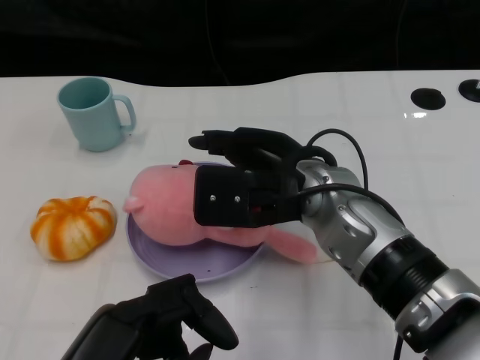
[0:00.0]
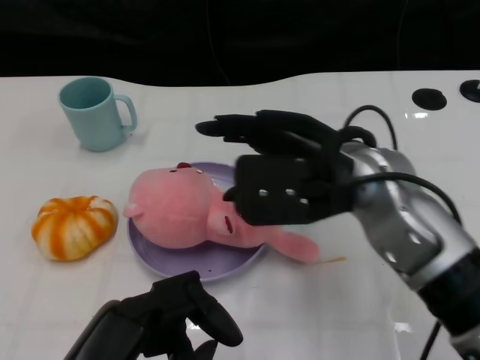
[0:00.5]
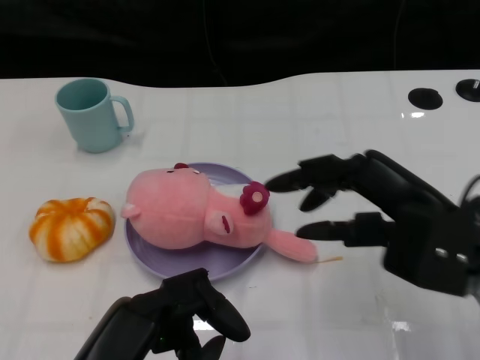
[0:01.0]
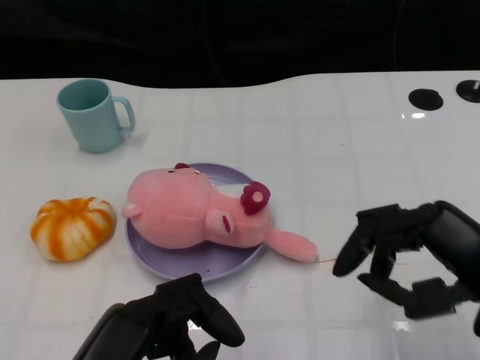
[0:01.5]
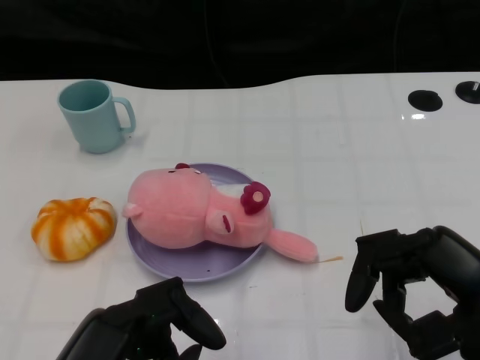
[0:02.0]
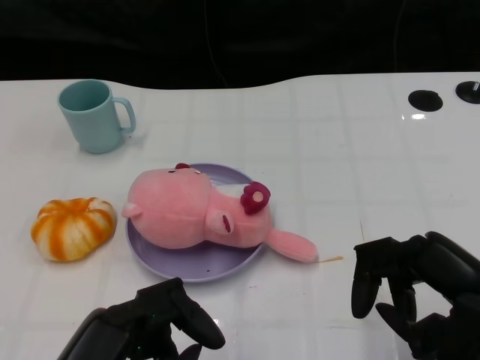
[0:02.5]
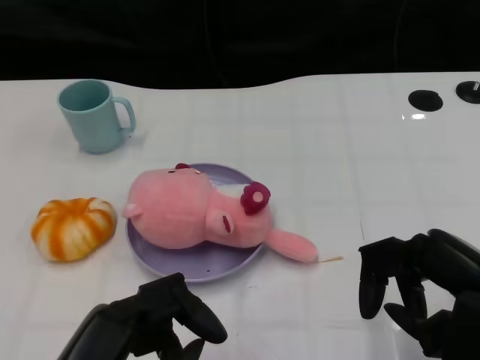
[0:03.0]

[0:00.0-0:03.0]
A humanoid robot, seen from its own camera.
Task of the whole recording: Pick up the doll on the other side of the plate and place it into the plate.
0:00.0 to 0:01.5: The right hand travels to the right and backward by about 20 cm.
0:01.5 to 0:03.0: There are only small adjustments of the hands.

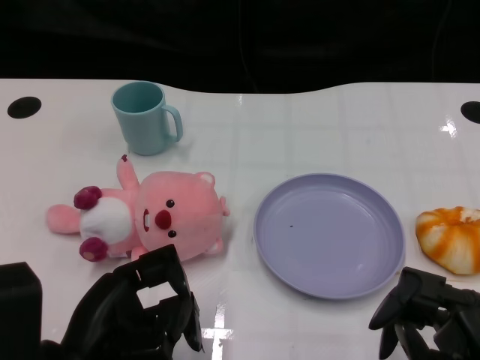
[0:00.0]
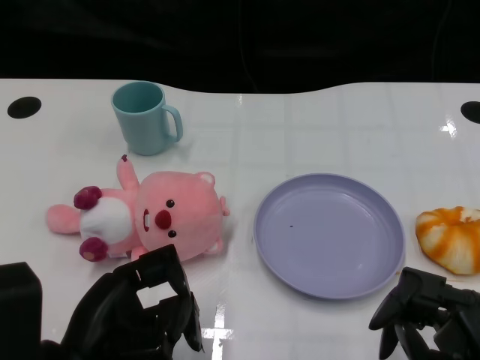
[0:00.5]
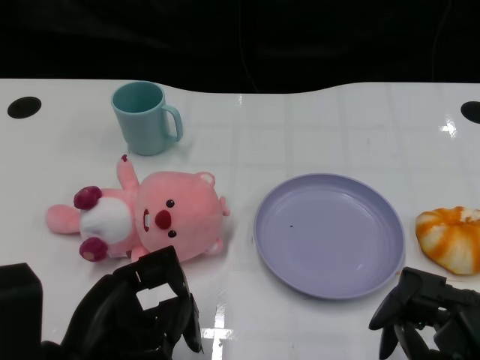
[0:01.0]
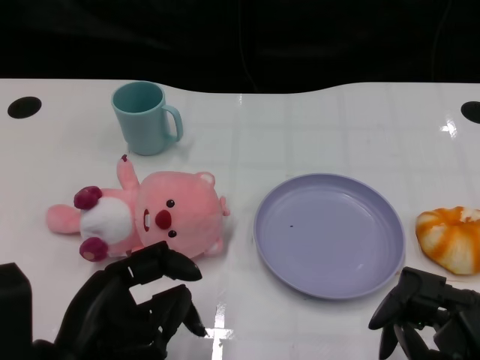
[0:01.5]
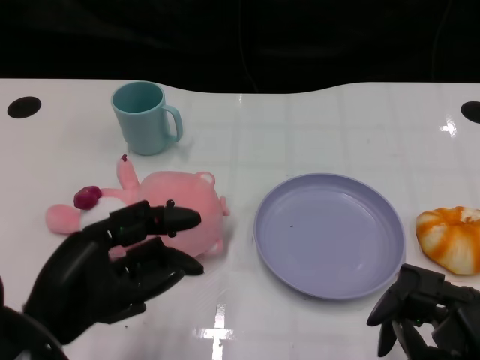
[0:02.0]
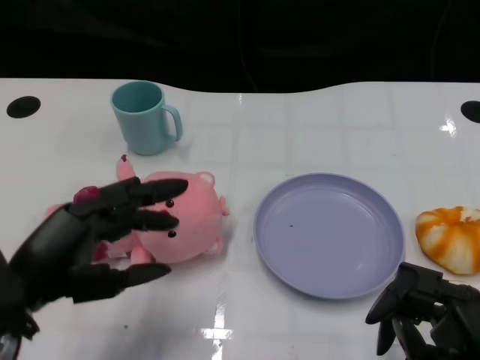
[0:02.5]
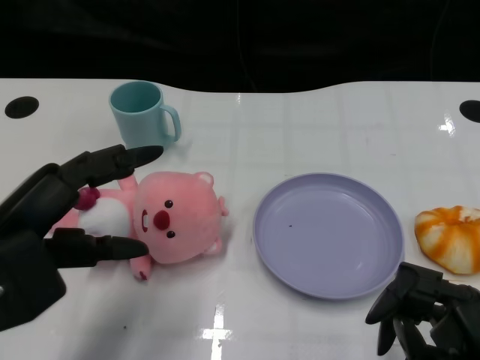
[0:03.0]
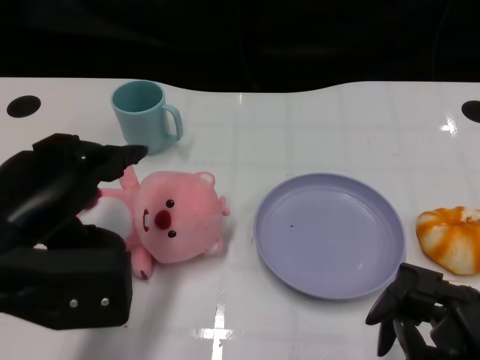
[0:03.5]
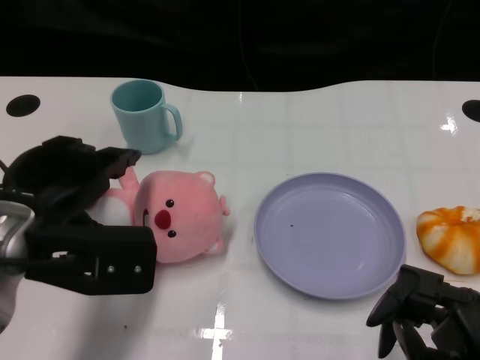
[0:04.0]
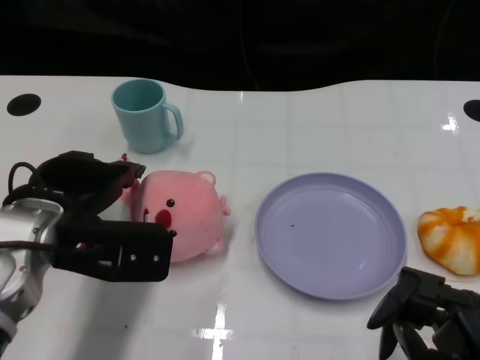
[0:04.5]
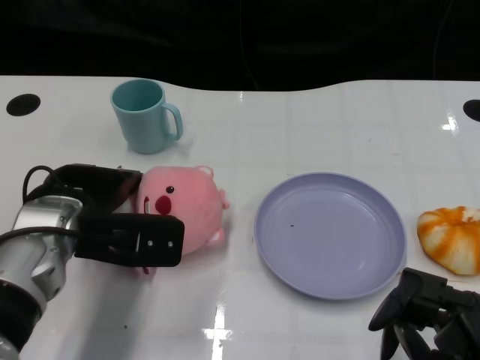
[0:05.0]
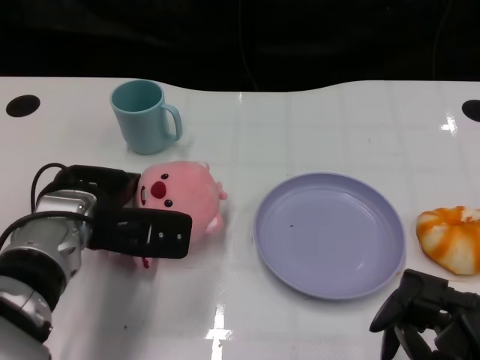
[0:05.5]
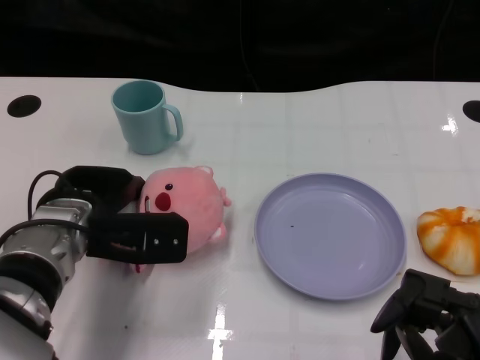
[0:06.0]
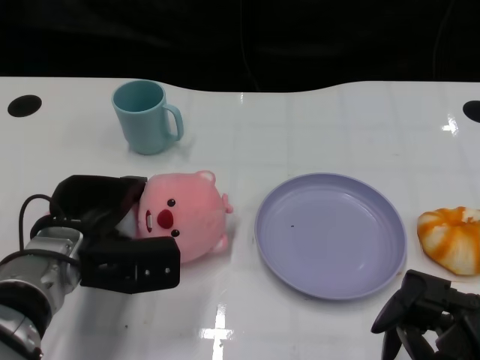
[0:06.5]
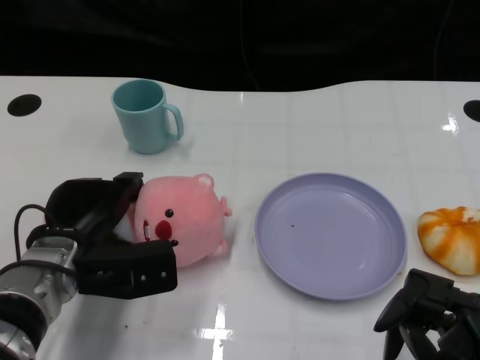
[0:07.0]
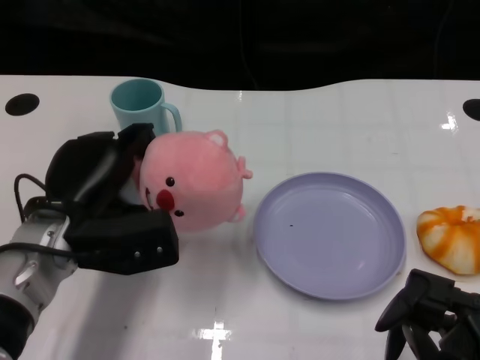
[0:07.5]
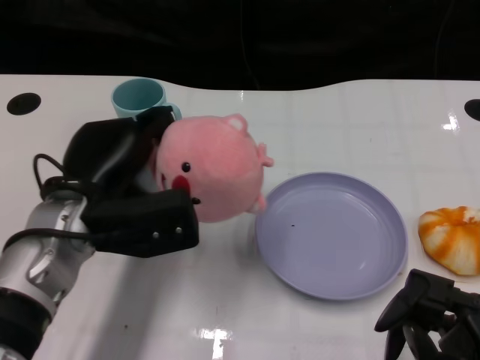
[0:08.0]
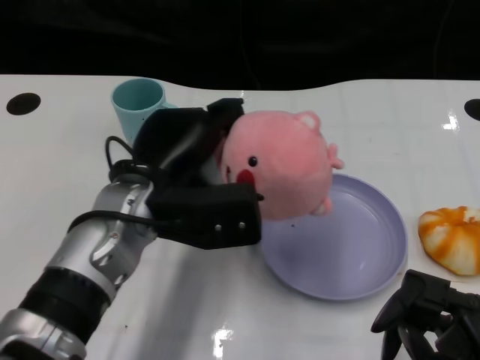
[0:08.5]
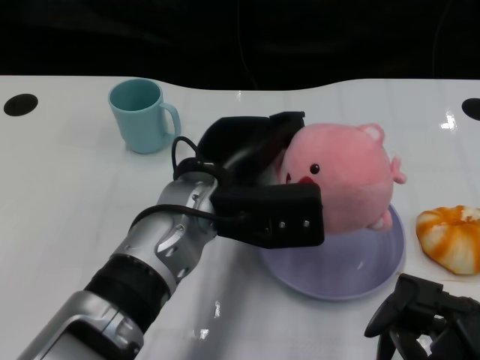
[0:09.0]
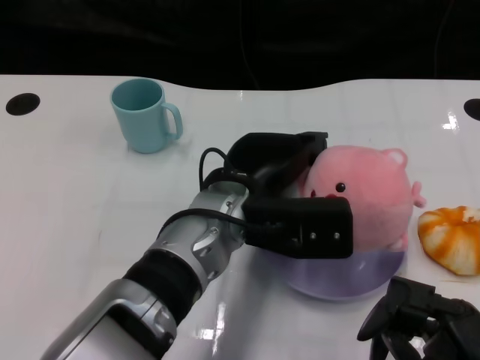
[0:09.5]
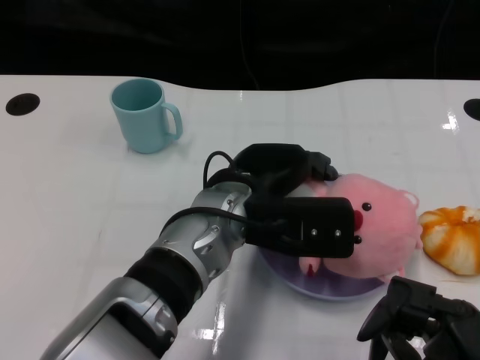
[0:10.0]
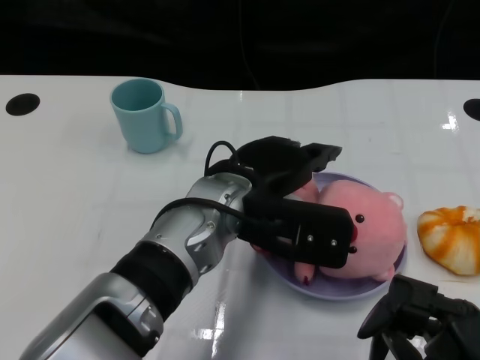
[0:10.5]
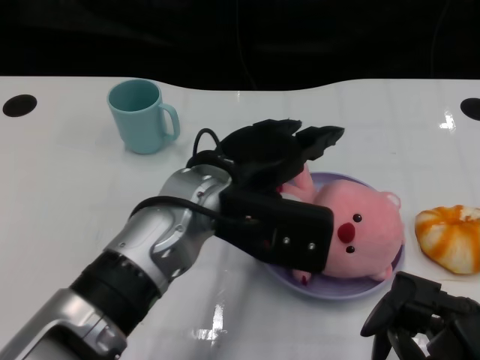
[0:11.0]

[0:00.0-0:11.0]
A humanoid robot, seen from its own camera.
Task of the whole recording: Pick up the doll on one side of the plate and place it into the plate.
Step, 0:01.5 to 0:07.0: Grasp the pink doll with the left gripper.
Step, 0:07.5 to 0:10.5: Place the pink doll into the plate with the left gripper.
0:02.0 to 0:03.5: The left hand travels upward by about 5 cm.
0:03.5 to 0:05.5: The left hand goes approximately 15 cm forward, downward and to the right.
0:07.5 to 0:09.0: The left hand moves to the right, approximately 15 cm.

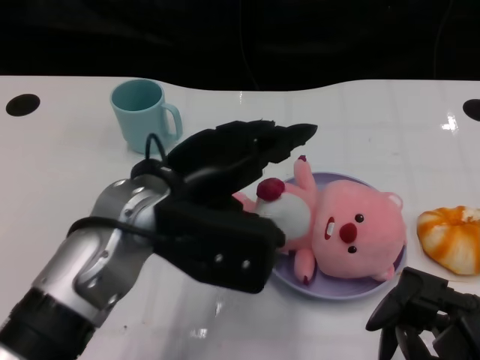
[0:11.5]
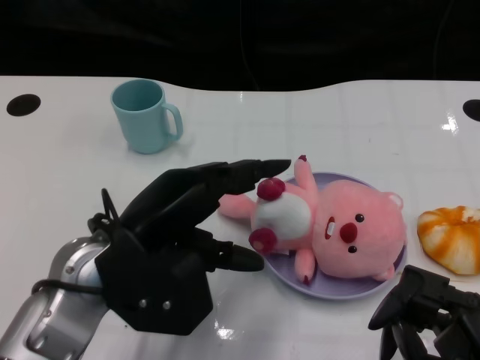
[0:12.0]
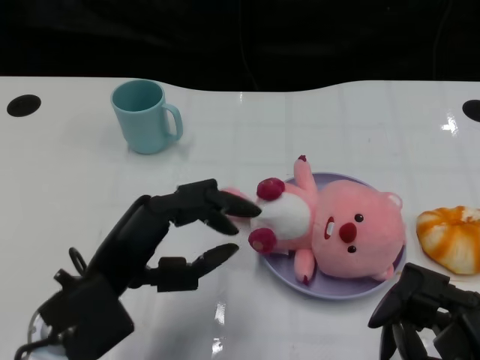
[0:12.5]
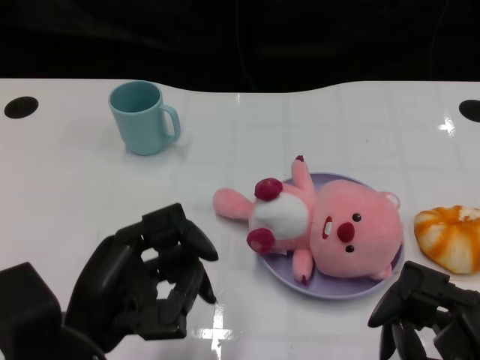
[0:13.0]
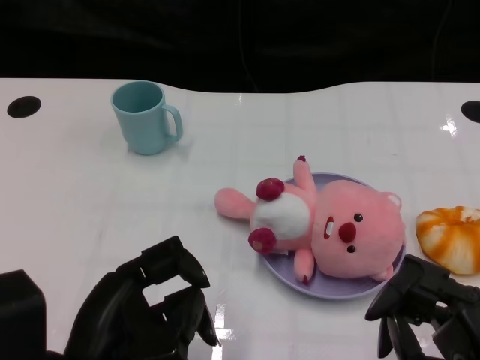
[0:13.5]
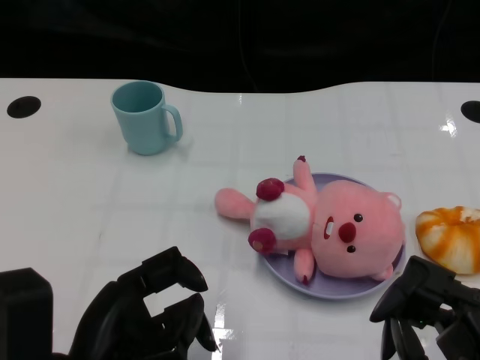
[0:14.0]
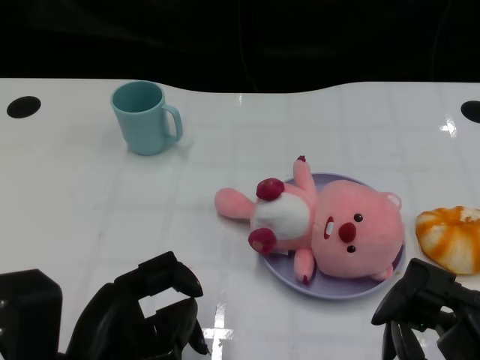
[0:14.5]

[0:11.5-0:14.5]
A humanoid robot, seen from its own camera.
Task of the whole recording: Pick up the doll on one side of the plate and place it into the plate.
0:11.5 to 0:13.0: The left hand travels backward, to the left and downward by approximately 15 cm.

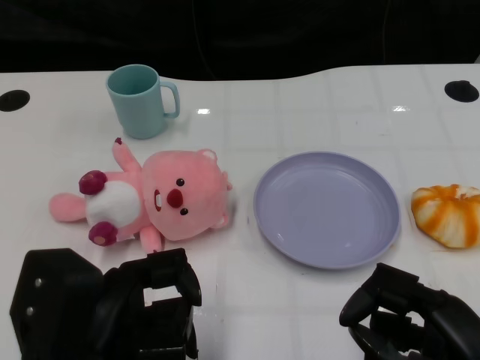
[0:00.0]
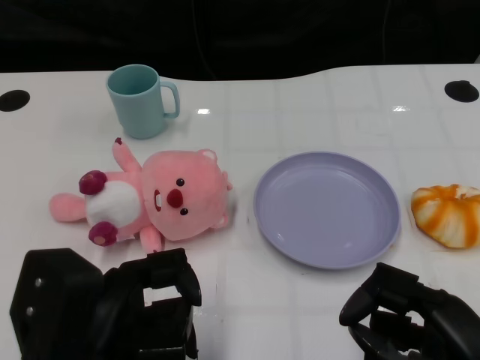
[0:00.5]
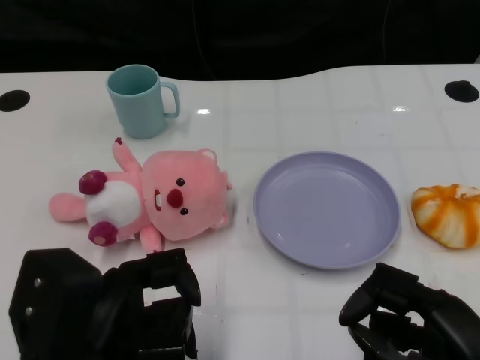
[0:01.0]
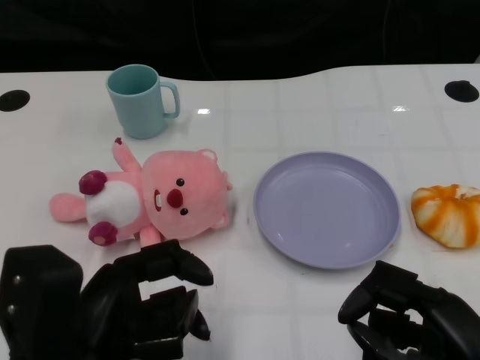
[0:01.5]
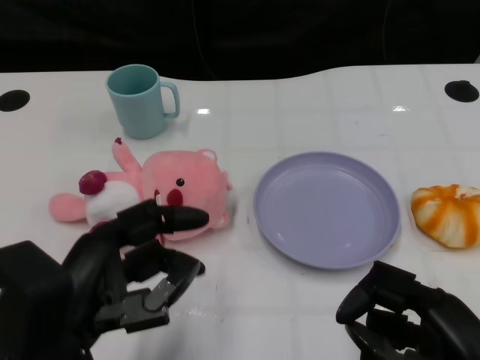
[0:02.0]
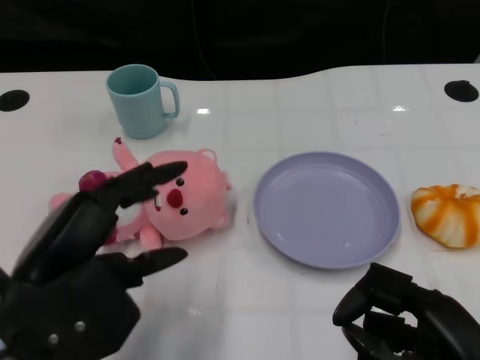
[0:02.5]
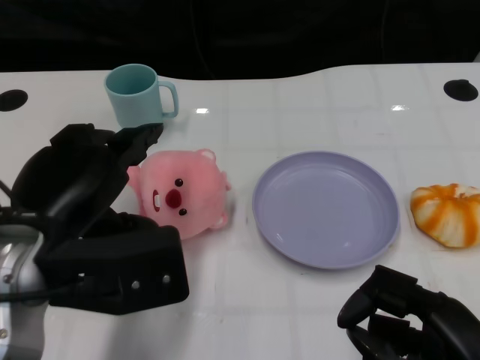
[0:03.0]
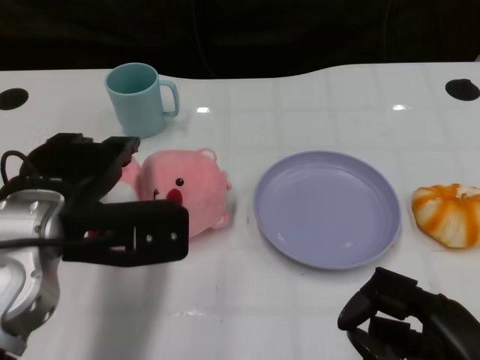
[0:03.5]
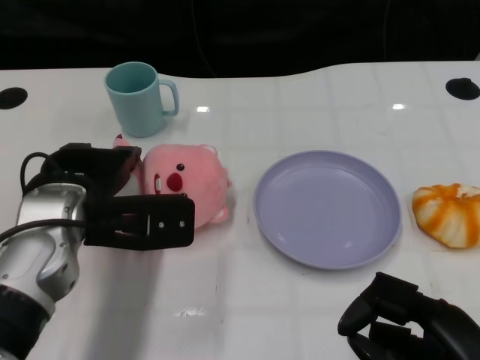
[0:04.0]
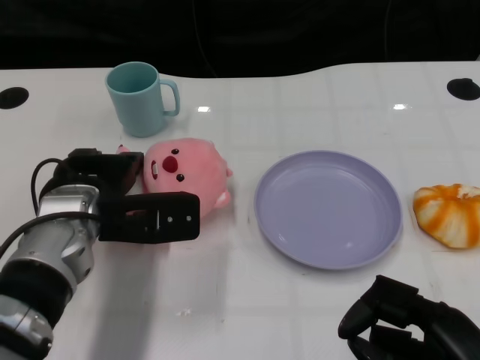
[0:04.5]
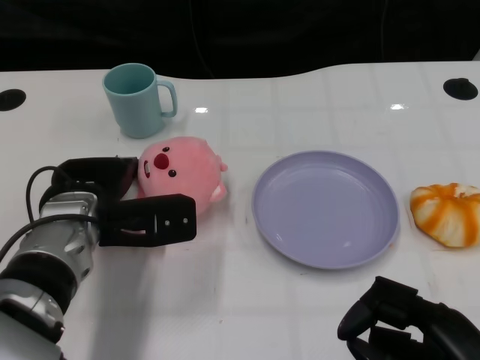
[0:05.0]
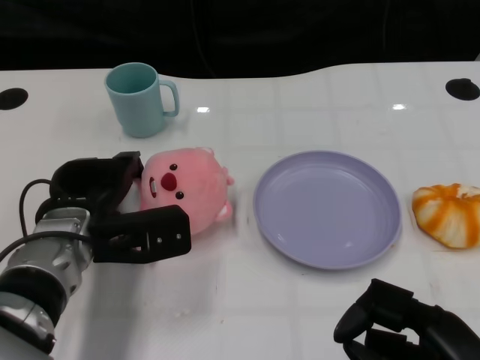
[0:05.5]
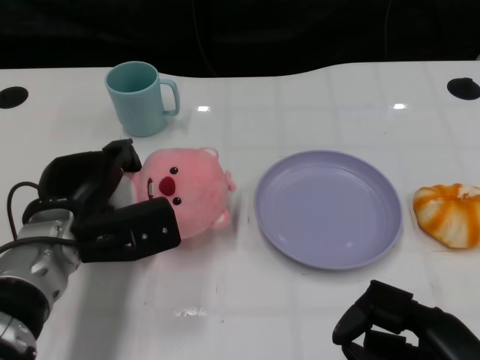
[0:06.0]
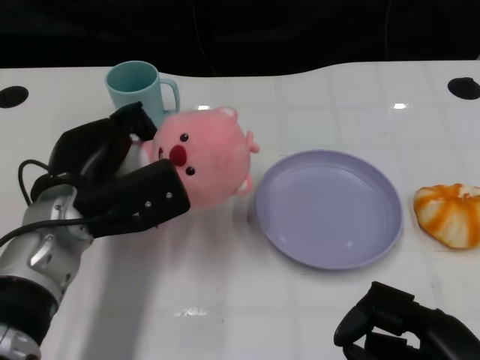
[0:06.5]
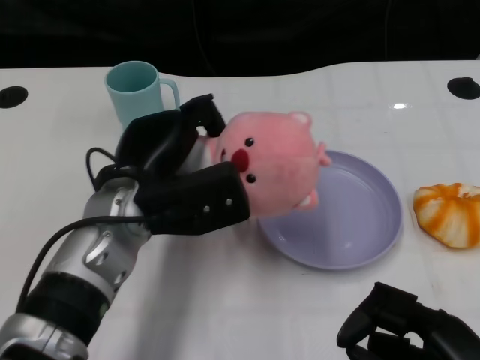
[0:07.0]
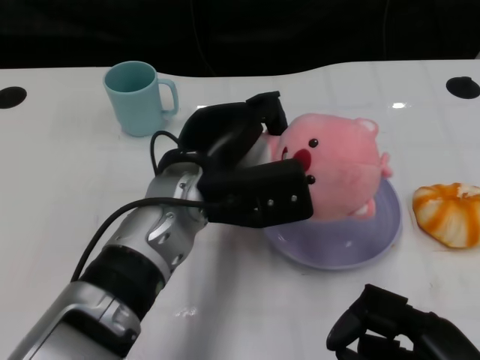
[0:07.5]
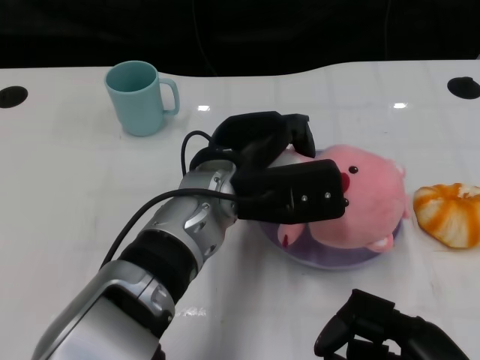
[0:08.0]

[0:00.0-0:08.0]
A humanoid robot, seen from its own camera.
Task of the whole recording: Pick up the doll on one side of the plate and place it into the plate.
Step, 0:01.5 to 0:06.0: Grasp the pink doll with the left gripper.
0:02.0 to 0:04.0: The left hand travels forward by roughly 15 cm.
0:04.0 to 0:06.0: The left hand shifts some 5 cm downward.
0:06.0 to 0:08.0: The left hand heads to the right, covering roughly 15 cm.
